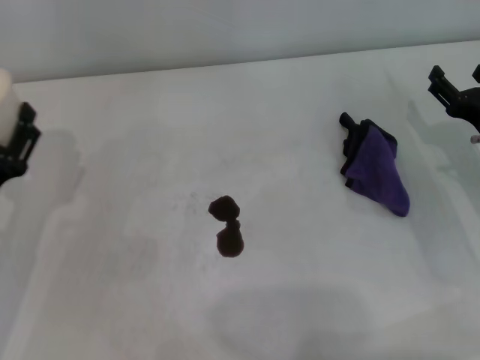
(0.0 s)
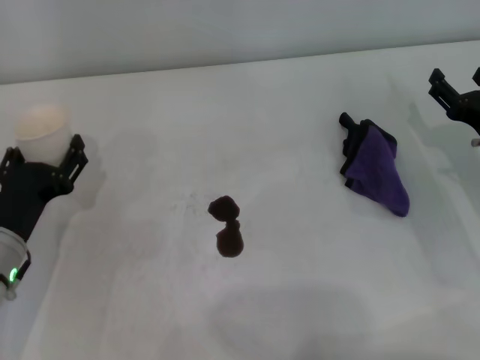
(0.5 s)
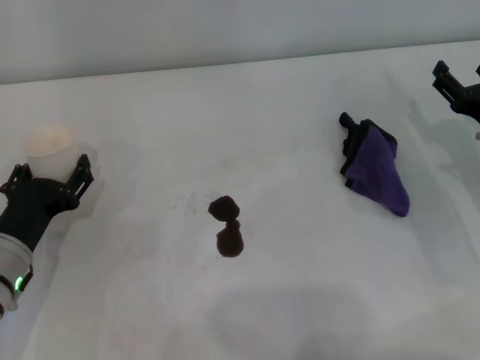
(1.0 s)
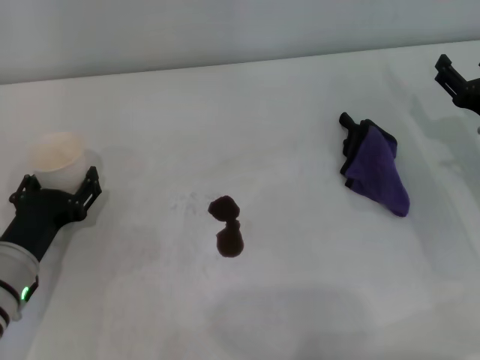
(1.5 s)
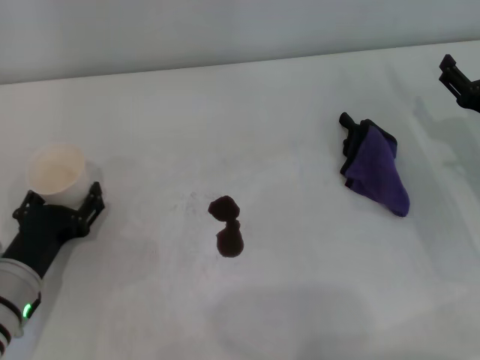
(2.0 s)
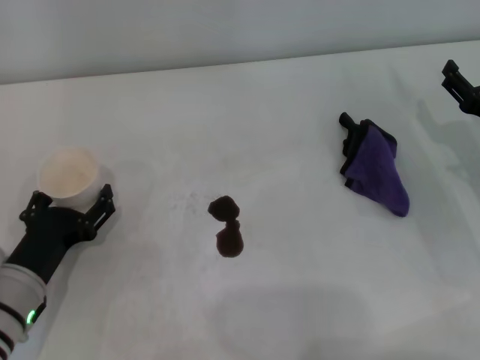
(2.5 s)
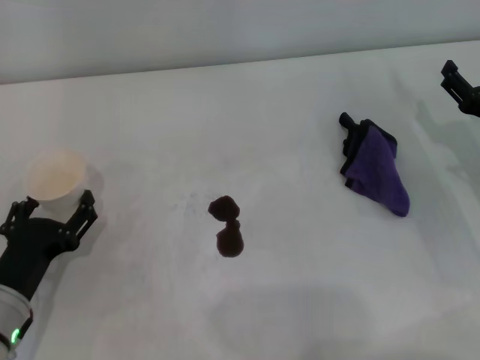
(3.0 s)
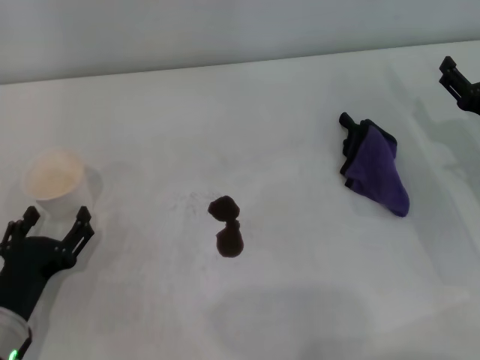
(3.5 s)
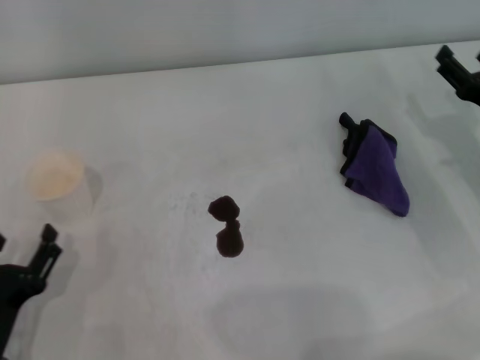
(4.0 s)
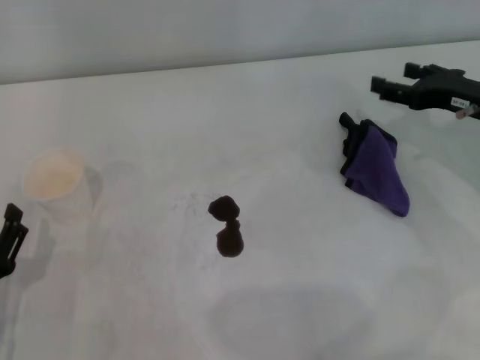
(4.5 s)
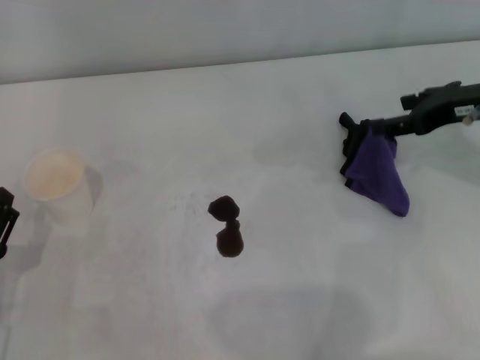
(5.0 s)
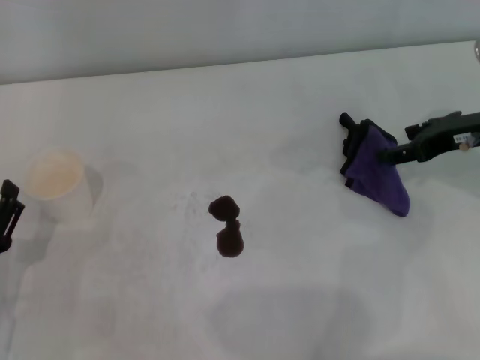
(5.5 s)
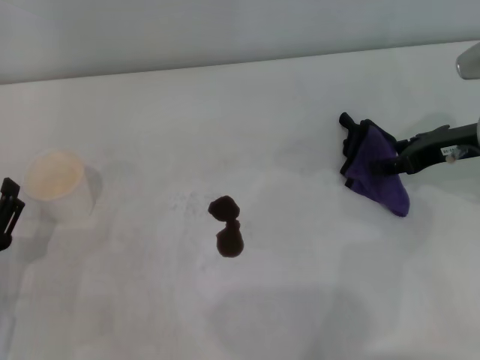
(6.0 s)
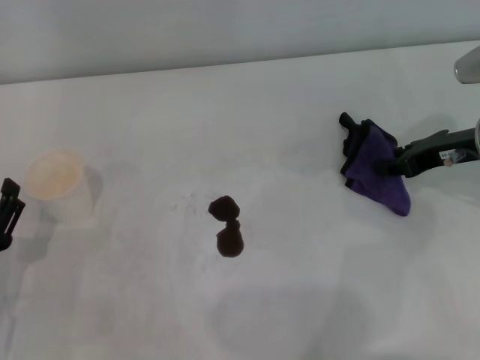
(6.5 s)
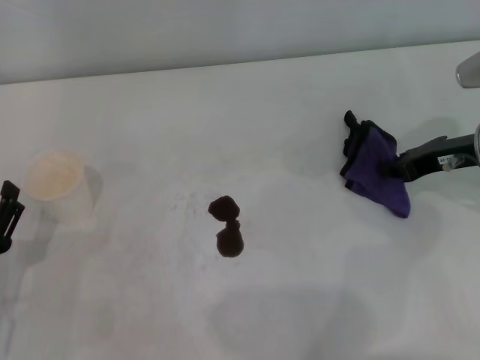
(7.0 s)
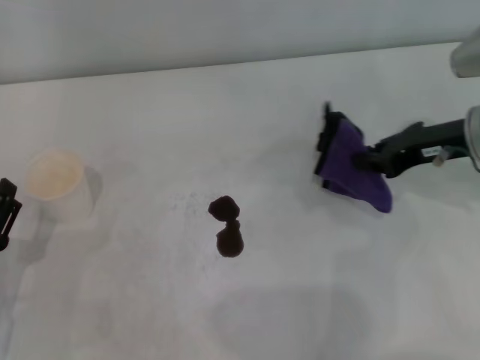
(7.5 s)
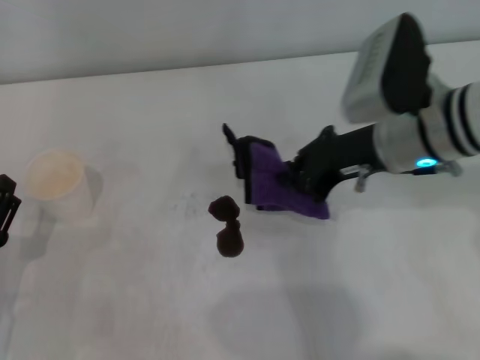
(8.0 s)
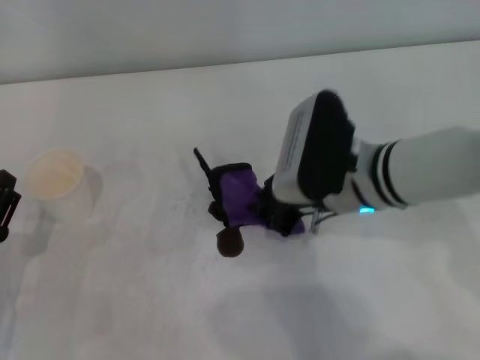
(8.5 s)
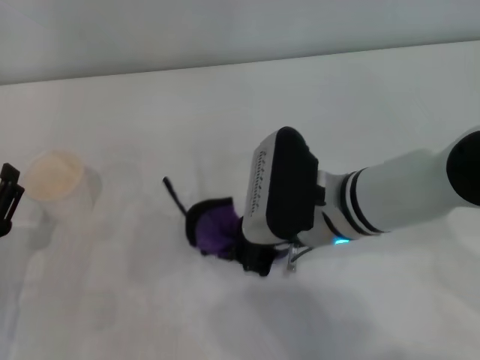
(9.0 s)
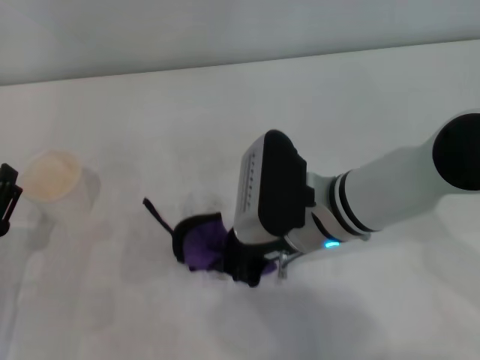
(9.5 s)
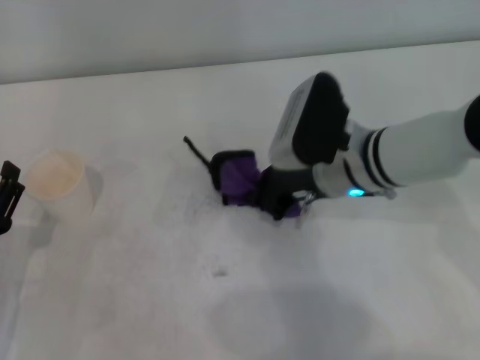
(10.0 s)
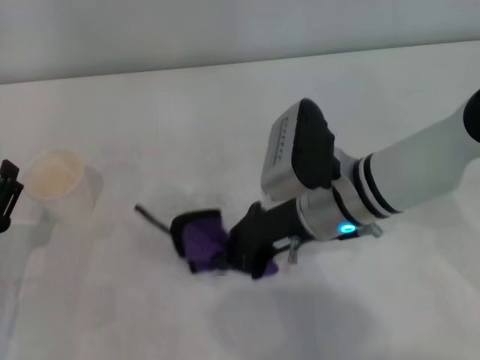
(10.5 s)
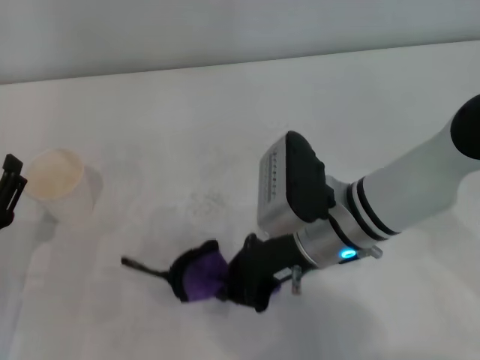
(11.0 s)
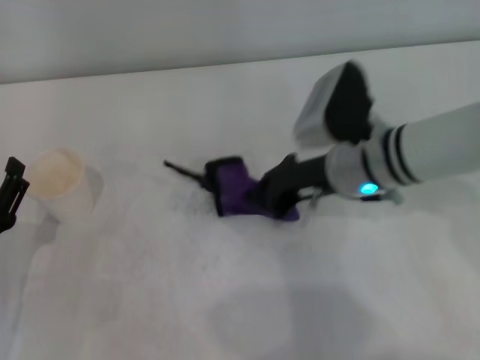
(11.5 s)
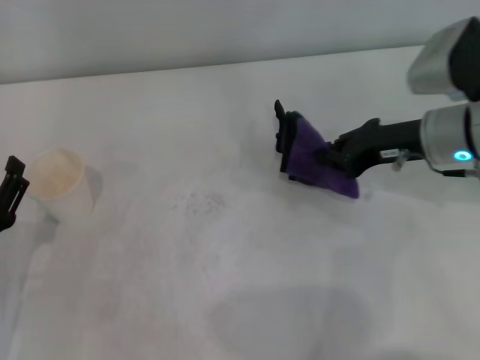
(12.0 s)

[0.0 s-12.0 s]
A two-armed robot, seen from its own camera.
Step, 0.0 to 2.0 s: Stand the paper cup upright with the left gripper.
Step, 2.5 to 7.0 s: Grasp the rag with the right gripper.
Step, 7.5 to 11.5 s: Wipe the stains off the table with the right gripper.
0.0 to 2.0 s: The left gripper shifts by approximately 5 cm.
2.0 to 4.0 s: The left gripper heads backward, covering roughly 10 cm.
4.0 to 6.0 s: The right gripper is displaced upward by about 5 cm.
6.0 to 8.0 s: The right gripper goes roughly 10 cm to the left, and closes its fingers.
8.0 to 10.0 s: The right gripper travels downward by about 5 cm.
10.0 to 12.0 s: The right gripper travels to the right by roughly 10 cm.

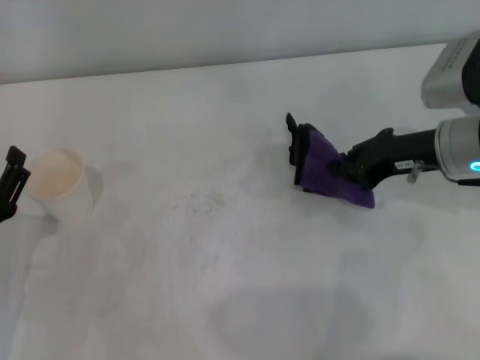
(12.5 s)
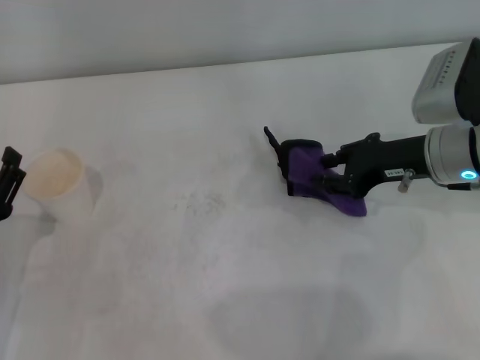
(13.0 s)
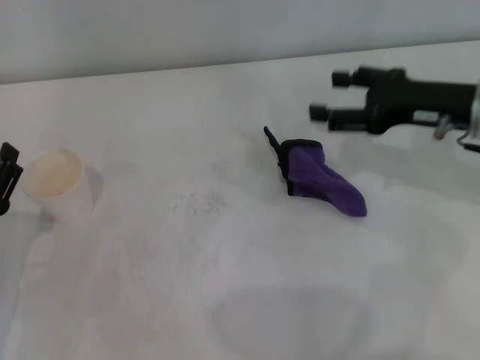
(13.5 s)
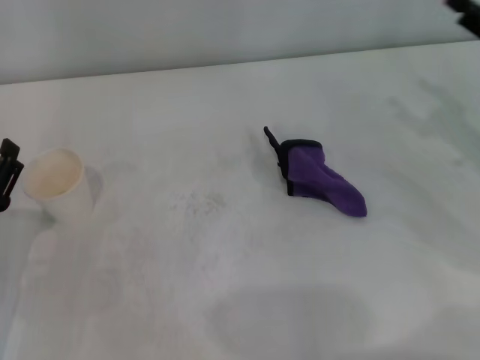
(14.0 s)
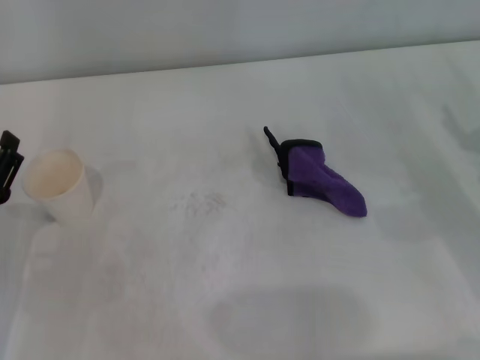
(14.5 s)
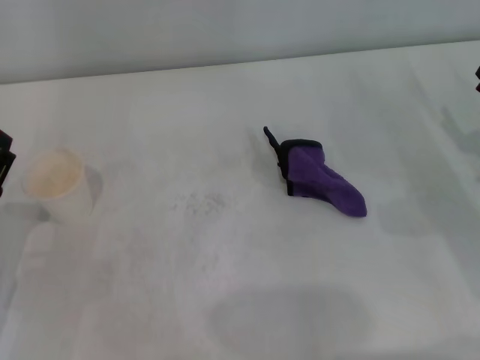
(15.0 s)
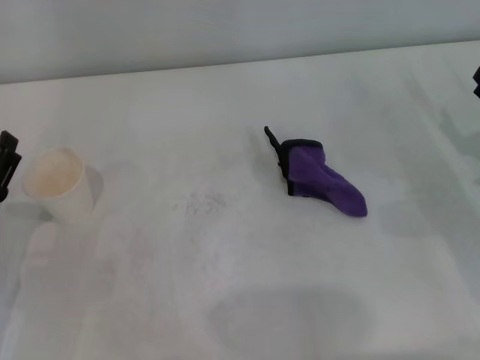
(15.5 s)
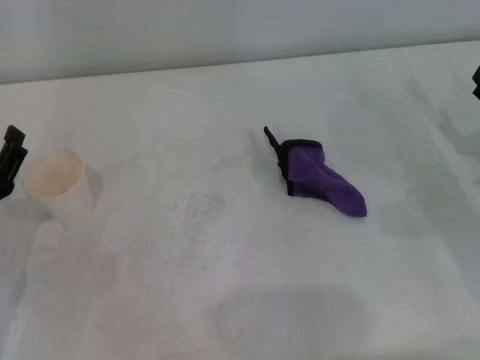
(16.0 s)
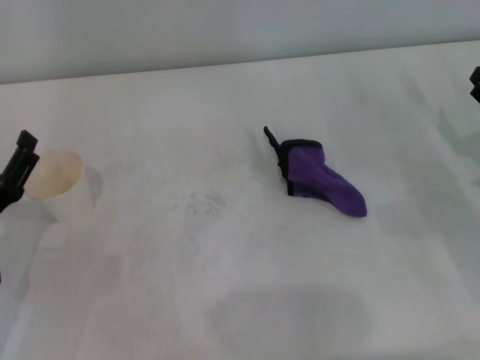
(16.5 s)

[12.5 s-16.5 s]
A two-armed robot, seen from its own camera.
12.5 to 14.5 s: The right gripper heads to the right and backward, covering roughly 15 cm, and opens.
14.5 to 16.5 s: The grippers stay close to where they were, moving slightly.
